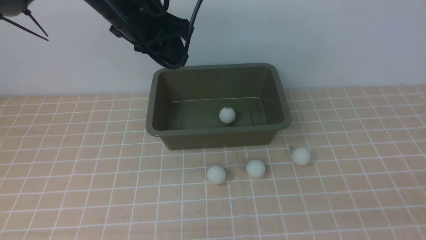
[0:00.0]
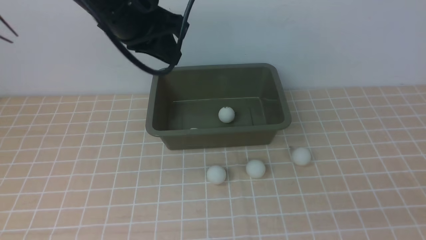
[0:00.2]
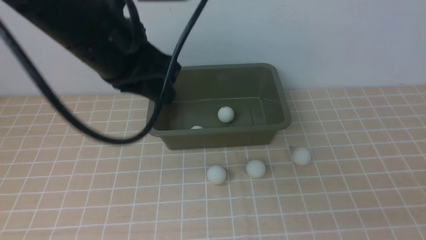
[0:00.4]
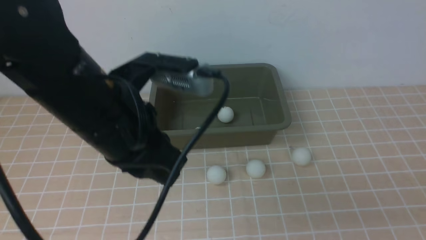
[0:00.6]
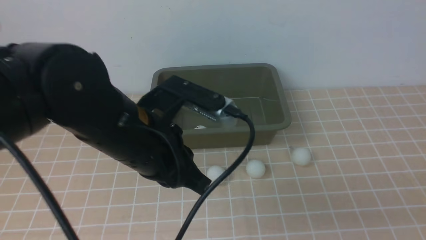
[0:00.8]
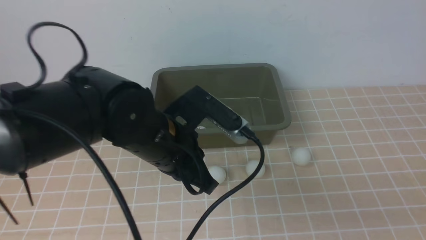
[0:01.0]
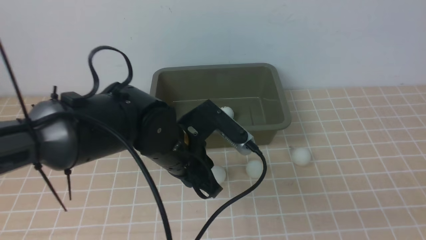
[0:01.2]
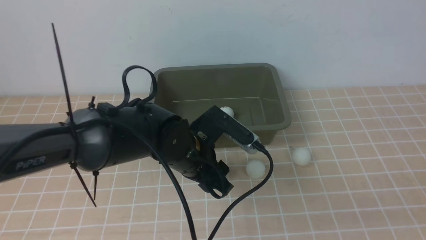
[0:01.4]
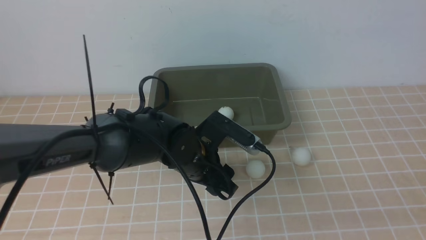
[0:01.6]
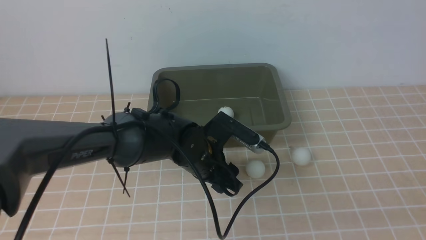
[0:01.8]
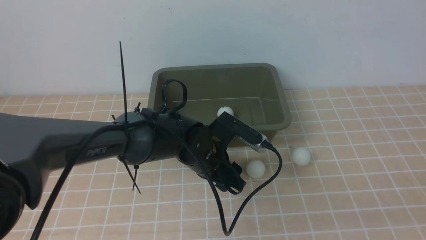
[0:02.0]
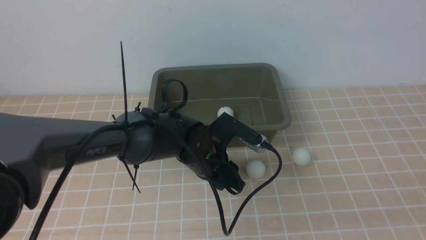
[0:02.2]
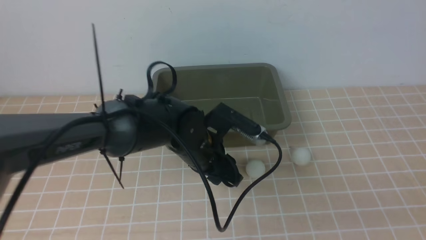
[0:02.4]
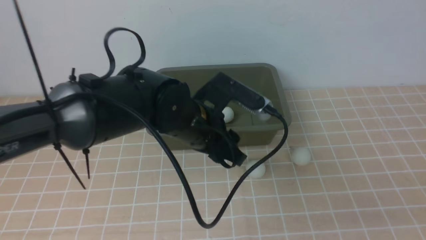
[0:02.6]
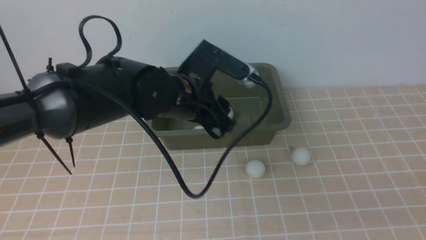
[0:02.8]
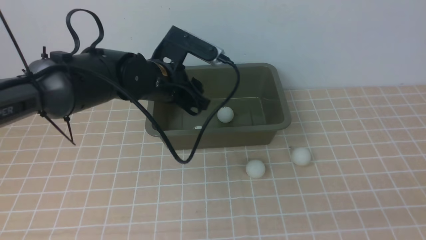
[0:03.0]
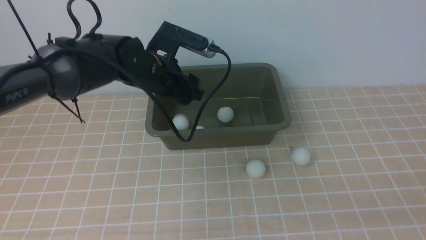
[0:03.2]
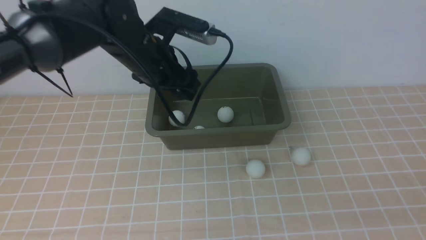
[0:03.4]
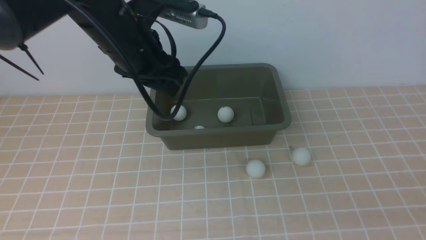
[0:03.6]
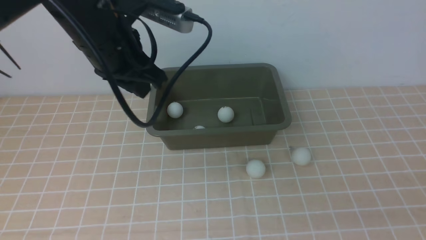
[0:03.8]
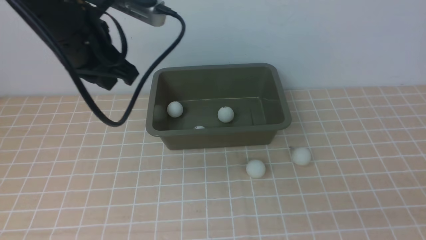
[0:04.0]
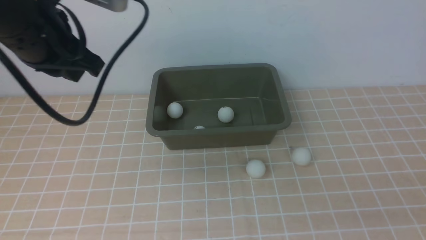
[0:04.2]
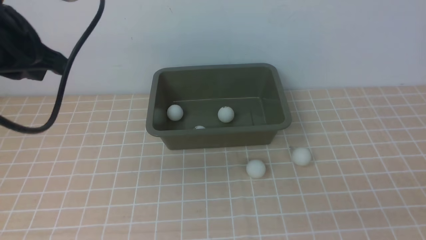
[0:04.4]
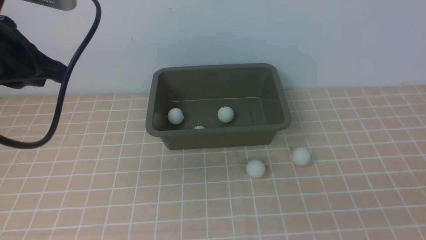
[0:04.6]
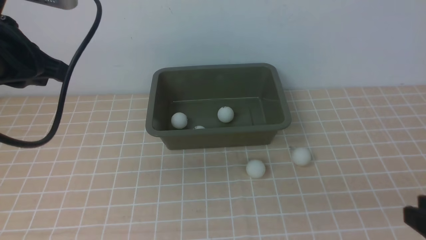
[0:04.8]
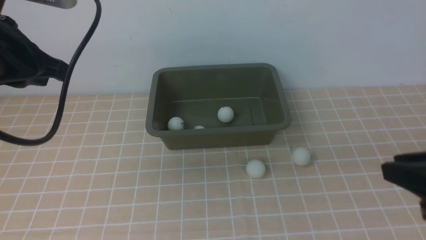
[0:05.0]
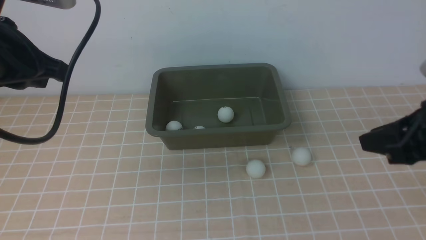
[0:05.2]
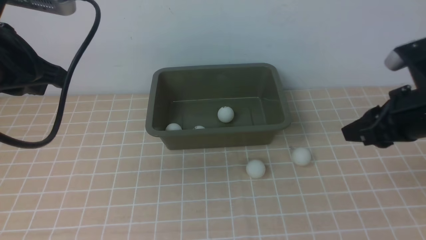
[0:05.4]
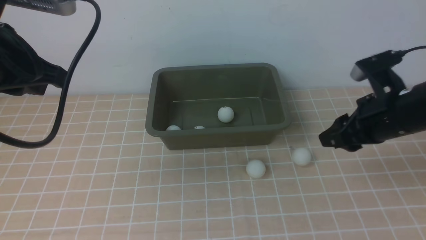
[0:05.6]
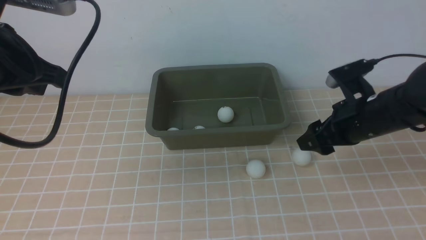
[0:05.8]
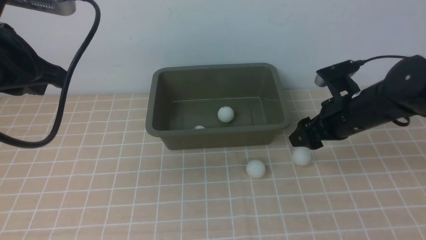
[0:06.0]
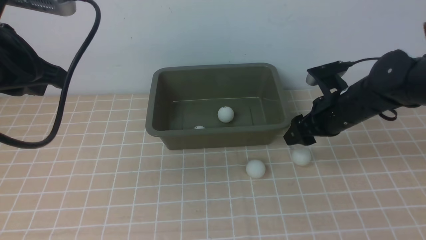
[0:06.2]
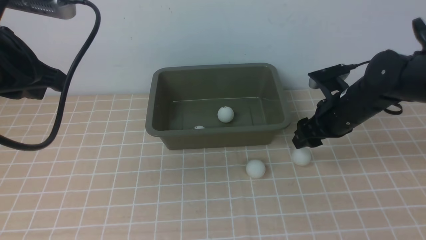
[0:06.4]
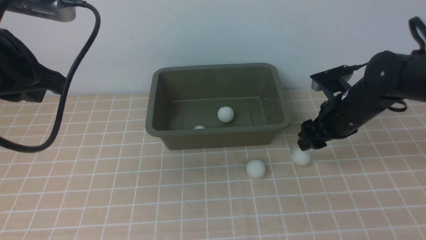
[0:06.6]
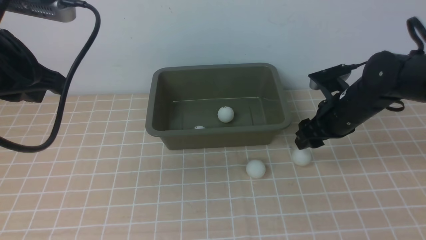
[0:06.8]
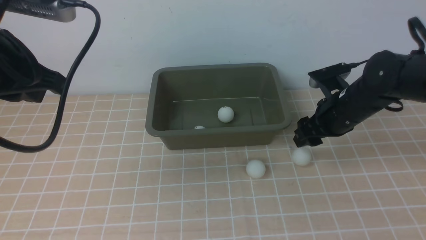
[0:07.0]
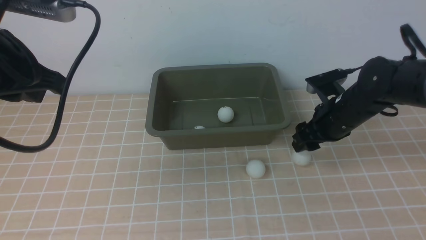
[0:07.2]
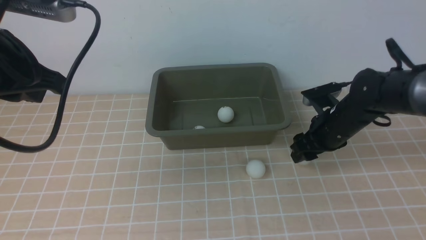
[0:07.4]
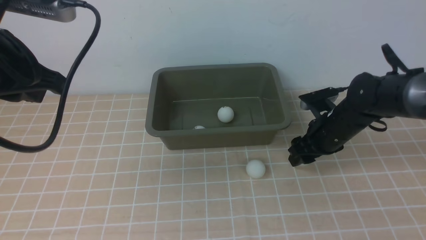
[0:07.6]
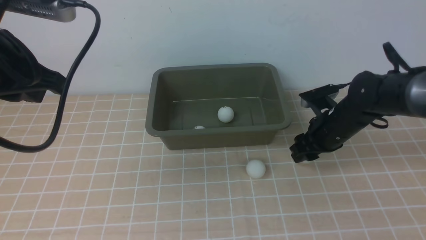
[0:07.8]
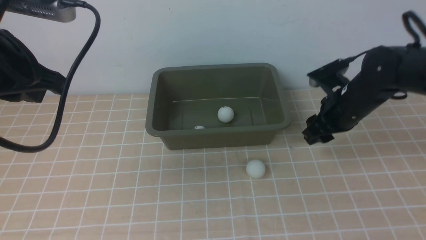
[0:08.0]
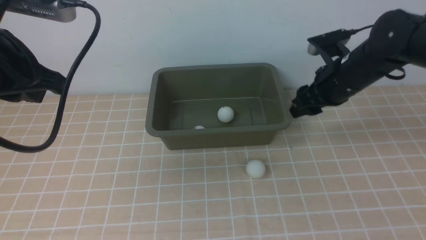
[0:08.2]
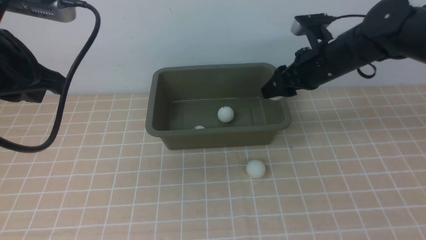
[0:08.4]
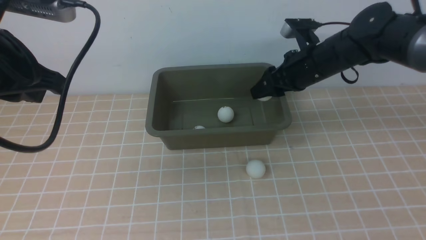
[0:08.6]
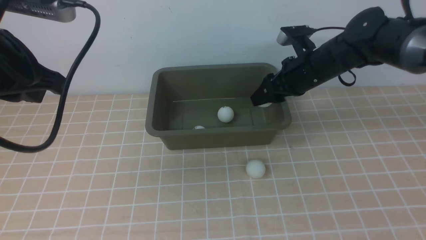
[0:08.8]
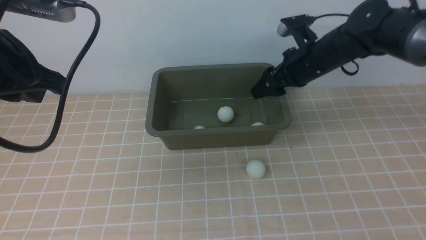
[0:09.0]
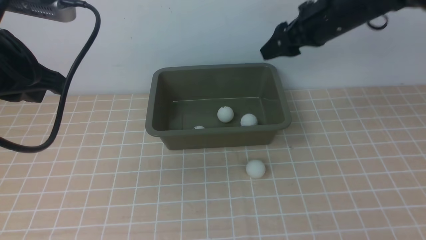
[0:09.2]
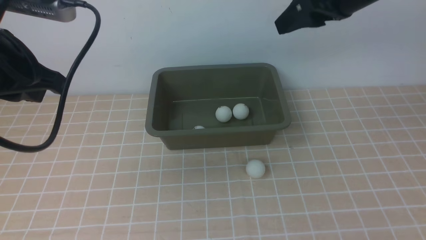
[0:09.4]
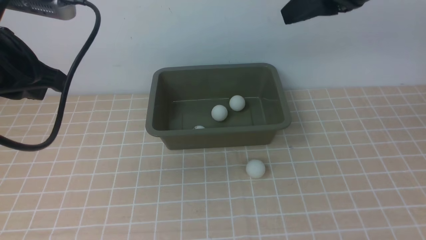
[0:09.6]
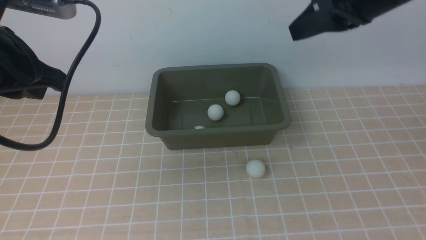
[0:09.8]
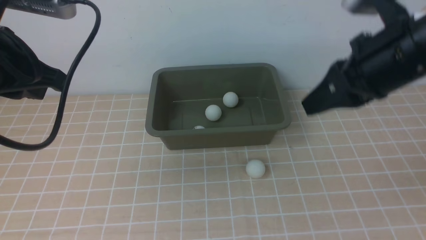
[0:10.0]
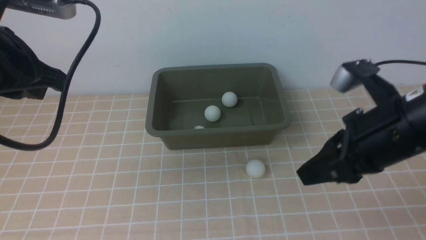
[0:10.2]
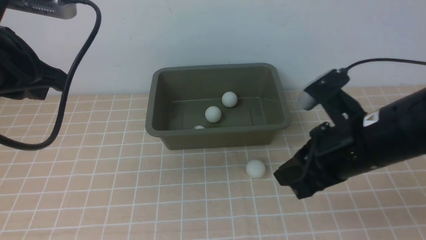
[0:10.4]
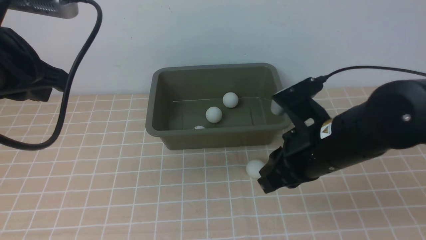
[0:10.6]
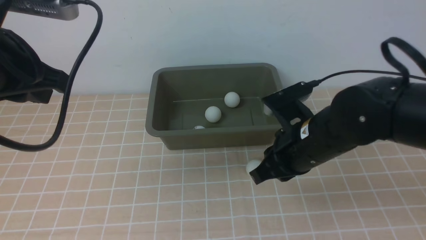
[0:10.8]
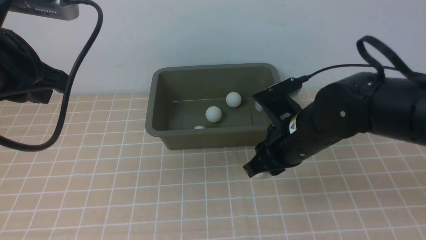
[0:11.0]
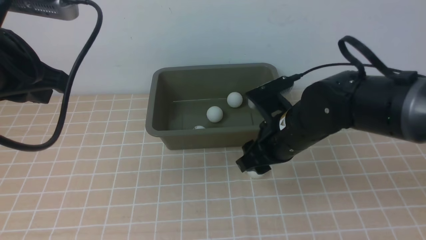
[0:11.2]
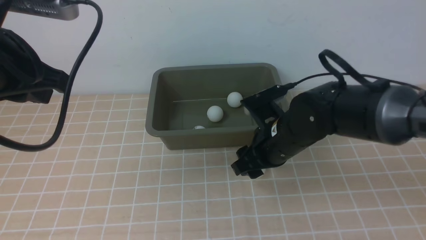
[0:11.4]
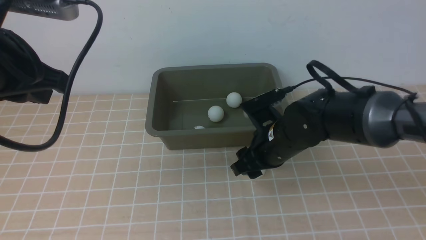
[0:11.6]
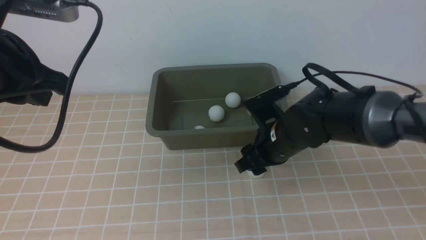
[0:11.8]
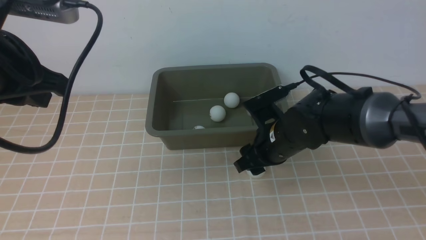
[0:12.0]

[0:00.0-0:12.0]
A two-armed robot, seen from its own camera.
Step, 0:00.2 to 0:02.6: use the left arm to clamp the table tennis ball closest to it.
Step, 0:02.8 to 0:03.8: use the left arm to put the table tennis ball into the box.
Step, 0:04.0 to 0:07.8: use the right arm to clamp the table tennis ball closest to it.
Step, 0:08.2 to 0:09.0: use the right arm to put the table tennis ball into the box.
0:00.0 to 0:01.6: The left gripper heads downward and to the right, covering about 25 cm, and opens up.
0:01.6 to 0:03.0: The left gripper goes about 10 cm upward, forward and to the left.
0:03.0 to 0:04.4: The left gripper goes roughly 20 cm upward, to the left and backward, and closes.
0:04.4 to 0:06.0: The right gripper moves forward, some 35 cm, and opens its fingers.
0:06.0 to 0:07.6: The right gripper travels downward by roughly 5 cm.
0:07.6 to 0:09.0: The right gripper goes roughly 15 cm upward.
0:09.0 to 0:10.4: The right gripper heads backward, covering some 20 cm, and closes its fingers.
0:10.4 to 0:12.0: The right gripper is displaced downward, forward and to the left by roughly 15 cm, and opens.

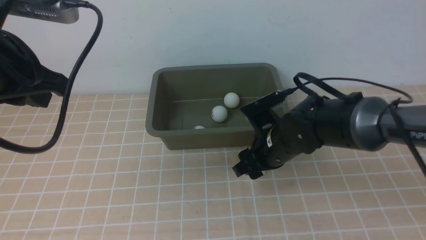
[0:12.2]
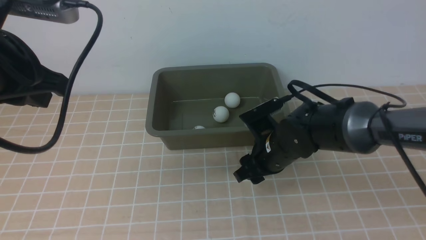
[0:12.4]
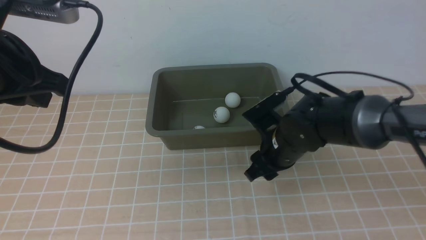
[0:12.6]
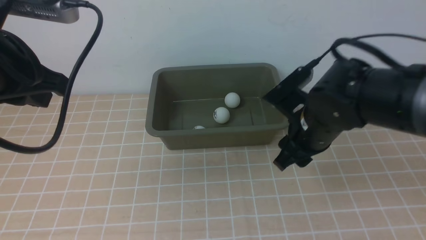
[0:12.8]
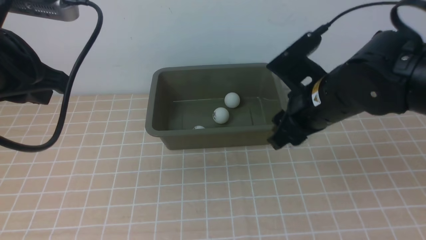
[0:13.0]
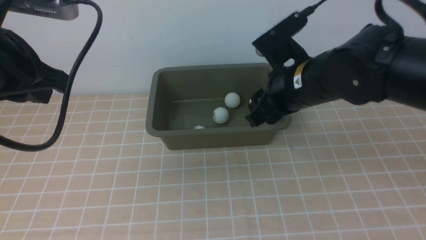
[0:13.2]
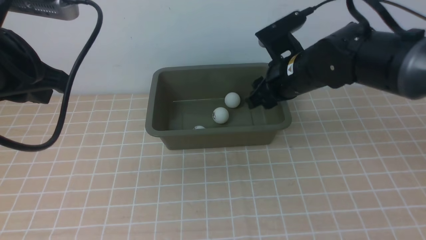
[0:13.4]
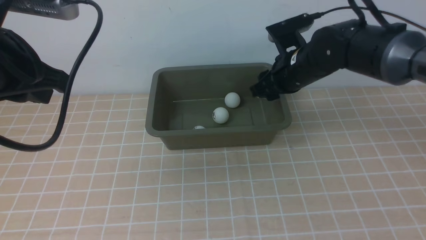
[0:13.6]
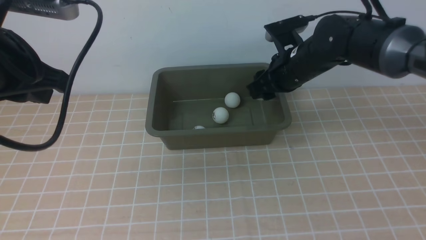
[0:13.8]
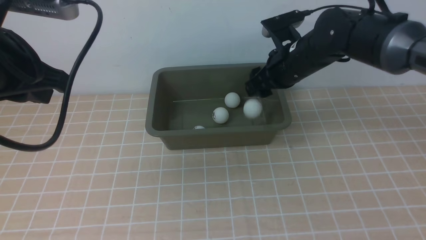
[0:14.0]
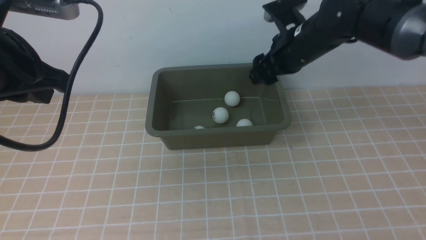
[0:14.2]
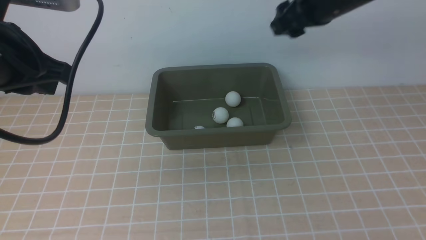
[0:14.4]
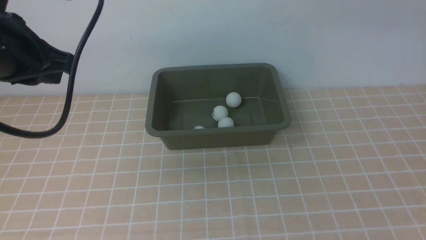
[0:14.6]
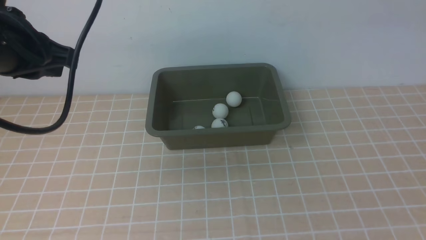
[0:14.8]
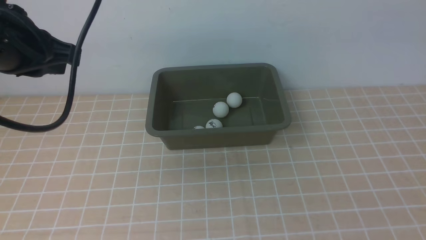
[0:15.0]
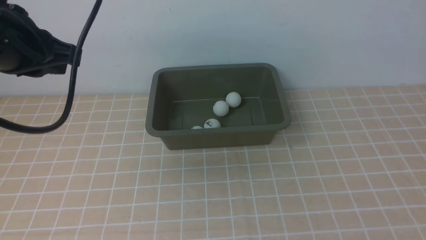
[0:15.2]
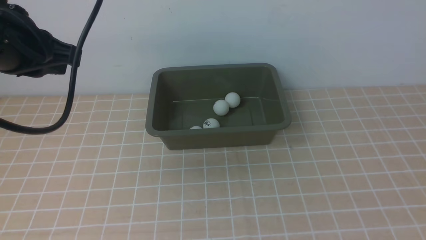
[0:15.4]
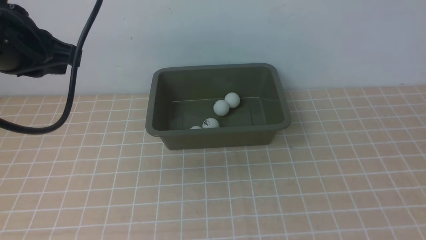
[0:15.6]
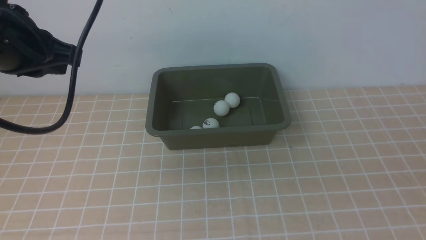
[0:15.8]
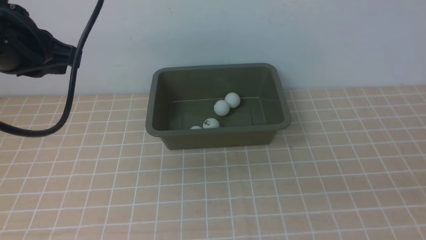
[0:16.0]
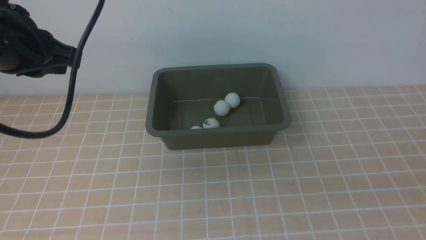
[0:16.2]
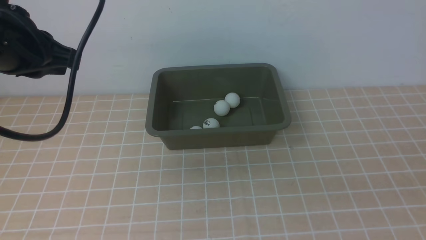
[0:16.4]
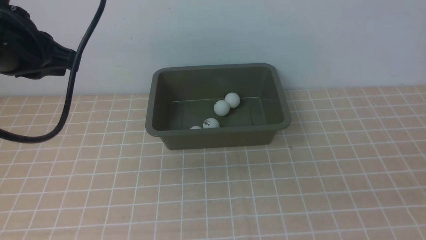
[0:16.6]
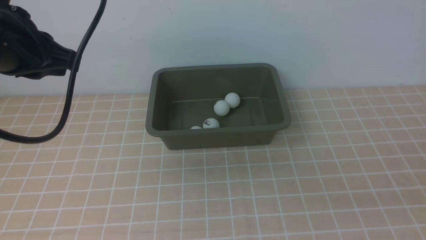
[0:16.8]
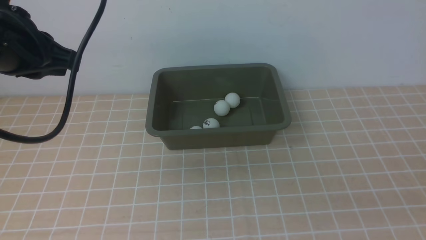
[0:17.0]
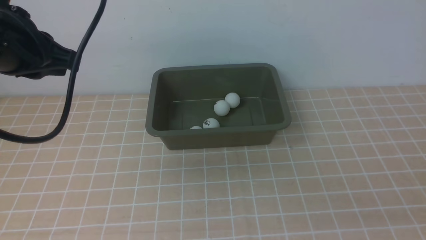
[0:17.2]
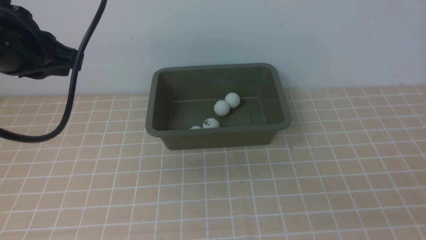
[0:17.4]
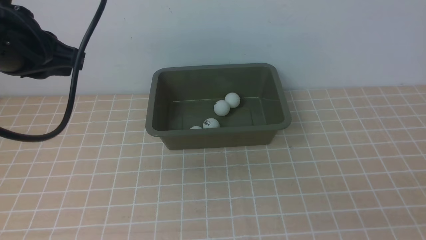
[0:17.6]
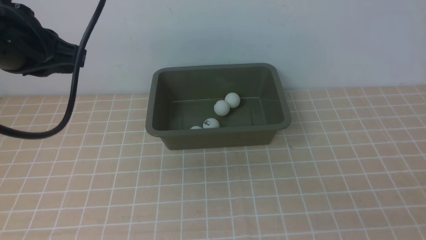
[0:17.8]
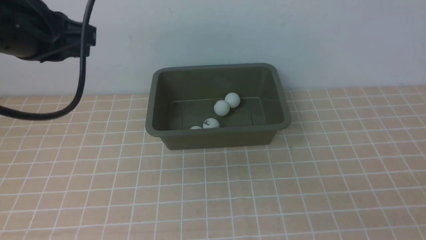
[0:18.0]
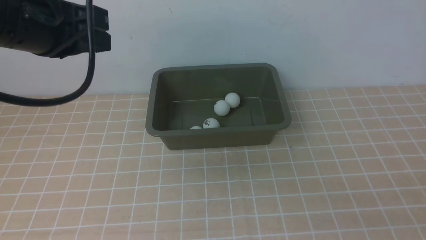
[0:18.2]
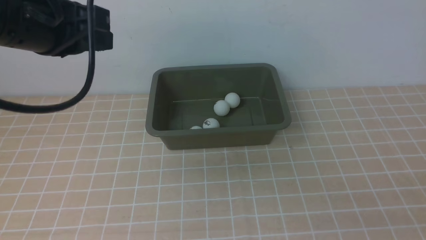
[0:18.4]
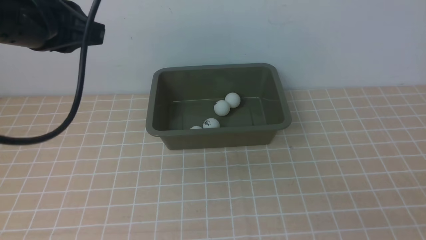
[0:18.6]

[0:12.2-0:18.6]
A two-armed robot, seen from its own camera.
Step, 0:13.0 to 0:14.0: use the right arm to put the table tennis ball into the box.
0:12.2 to 0:13.8: The right gripper goes approximately 15 cm forward and upward.
0:13.8 to 0:15.4: The right gripper travels backward, upward and to the right by roughly 35 cm, and closes.
